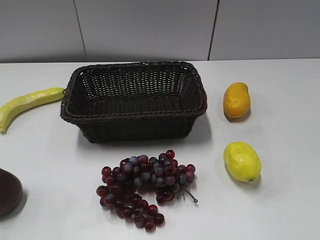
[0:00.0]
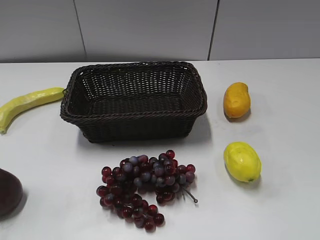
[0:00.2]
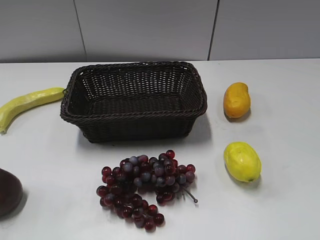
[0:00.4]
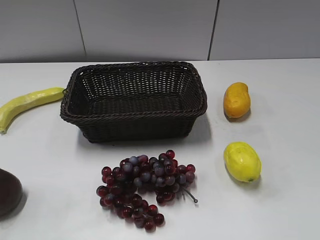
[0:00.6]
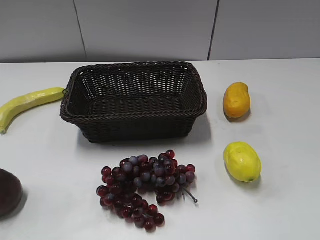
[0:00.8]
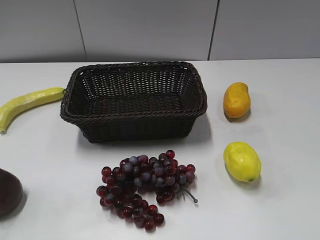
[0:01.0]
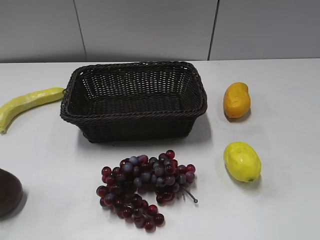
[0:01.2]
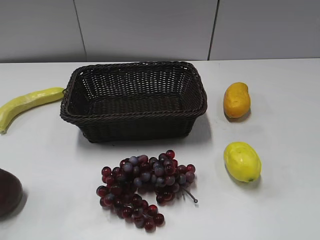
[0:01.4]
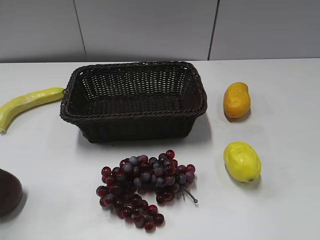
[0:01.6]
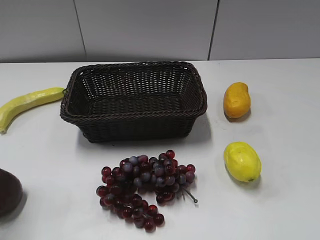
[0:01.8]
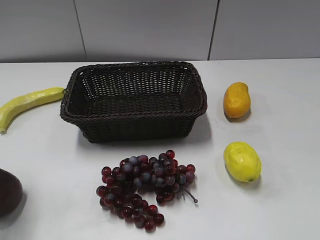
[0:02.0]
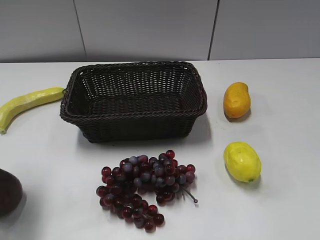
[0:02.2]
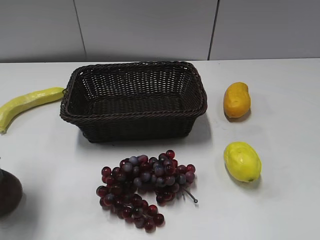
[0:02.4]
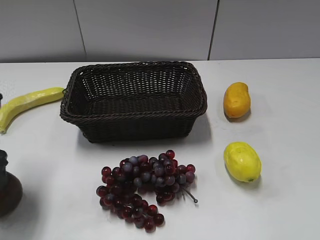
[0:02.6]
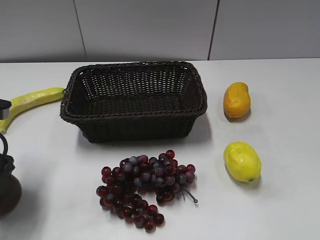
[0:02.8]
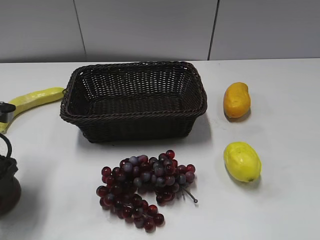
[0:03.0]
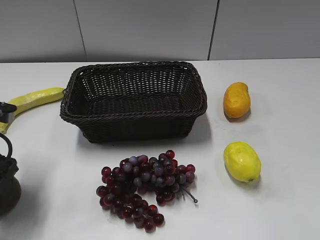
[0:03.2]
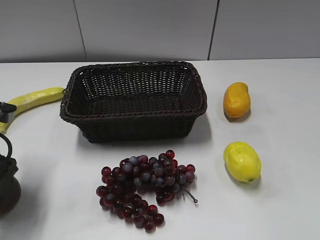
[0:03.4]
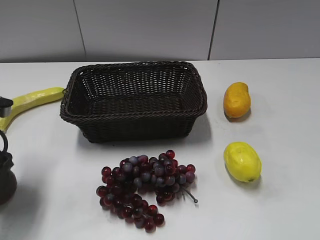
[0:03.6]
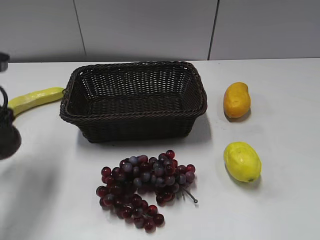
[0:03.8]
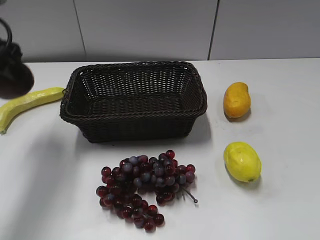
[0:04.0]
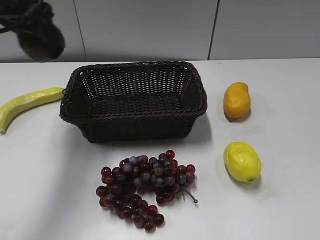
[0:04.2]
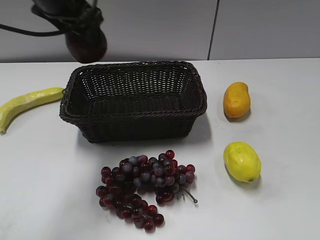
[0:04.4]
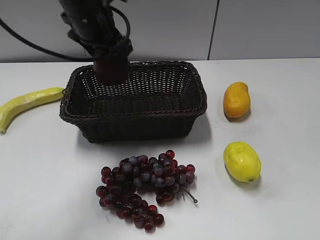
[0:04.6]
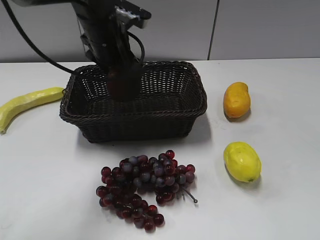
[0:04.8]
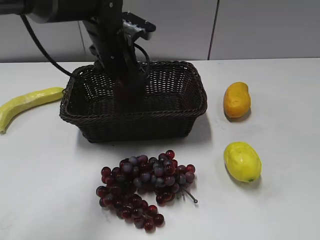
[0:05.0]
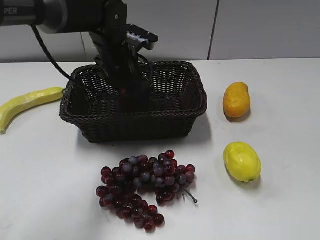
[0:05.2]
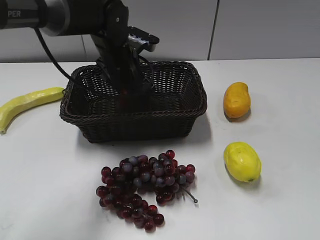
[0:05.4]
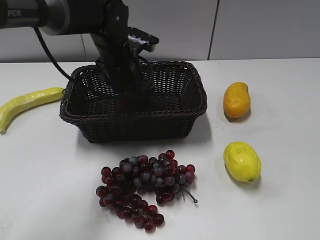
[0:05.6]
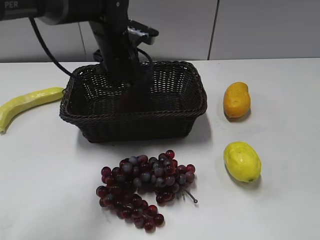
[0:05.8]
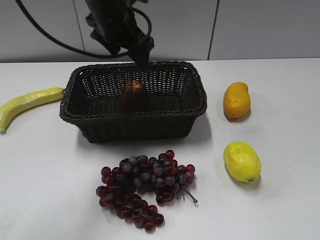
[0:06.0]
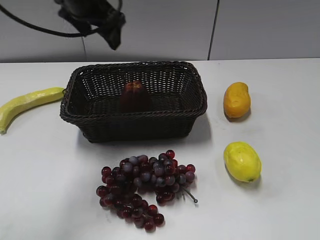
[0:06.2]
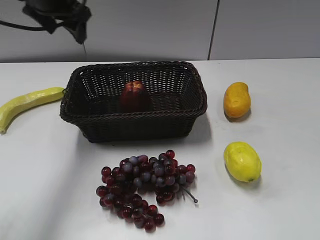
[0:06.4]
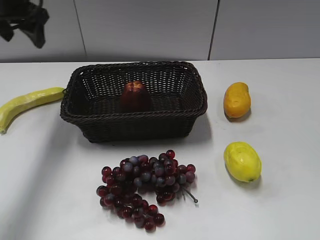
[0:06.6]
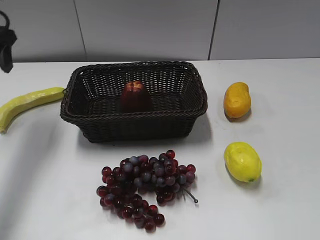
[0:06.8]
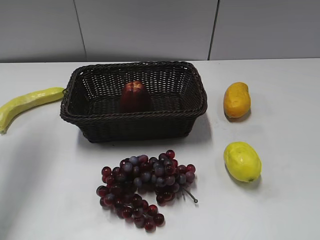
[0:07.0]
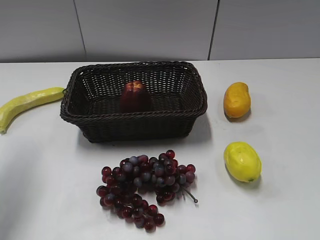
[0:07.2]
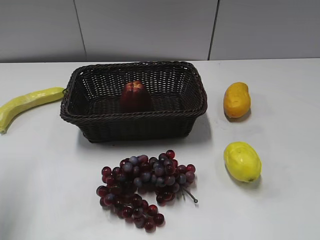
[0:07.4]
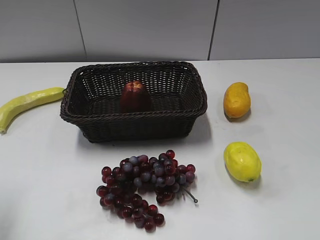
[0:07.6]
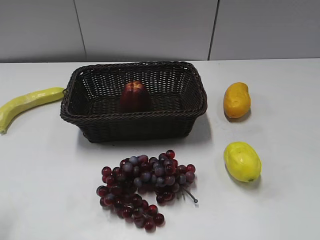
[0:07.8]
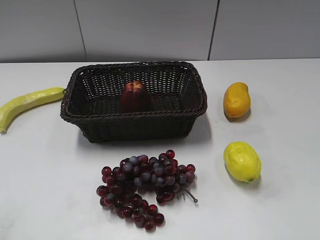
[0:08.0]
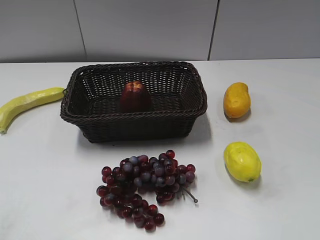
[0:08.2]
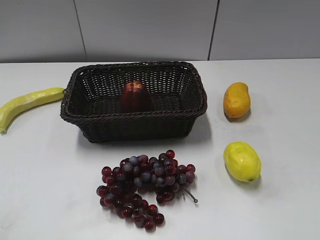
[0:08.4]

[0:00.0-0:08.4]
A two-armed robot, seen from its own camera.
Step, 0:03.2 to 0:05.4: Place the apple in the basket with left gripper.
0:01.4 to 0:02.8: The left gripper travels forward and downward by about 20 cm.
0:02.8 to 0:04.2: The left gripper moves upward, forward and to the right, some 20 cm.
0:04.2 to 0:05.6: The left gripper travels downward and to the right by about 20 cm.
0:05.6 to 0:07.0: The left gripper travels to the left and upward by about 25 cm.
0:07.0 to 0:08.4: The left gripper shifts approximately 30 cm backward.

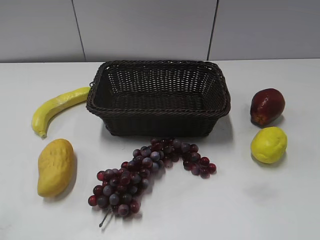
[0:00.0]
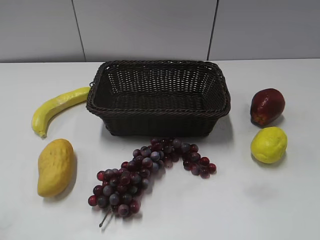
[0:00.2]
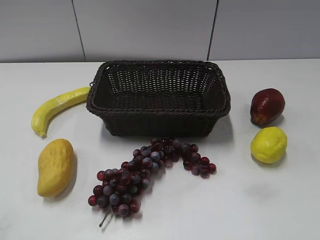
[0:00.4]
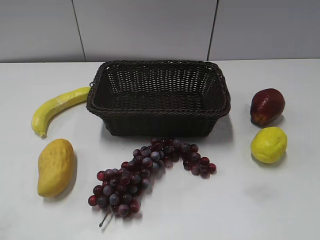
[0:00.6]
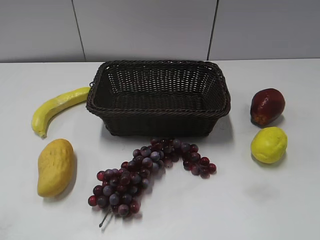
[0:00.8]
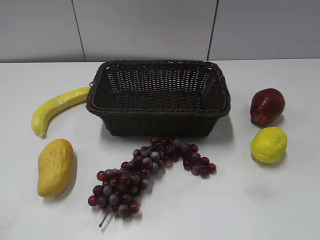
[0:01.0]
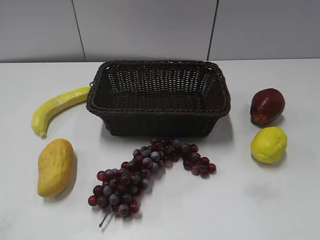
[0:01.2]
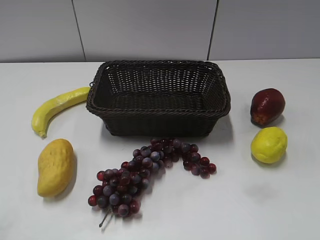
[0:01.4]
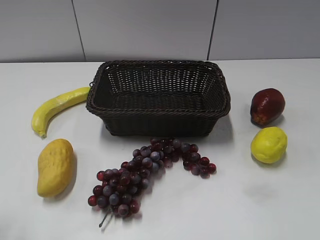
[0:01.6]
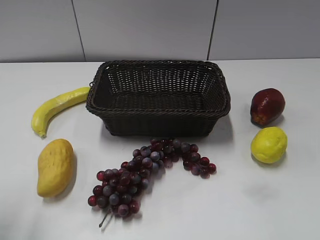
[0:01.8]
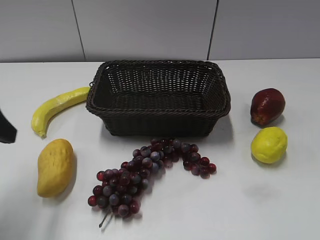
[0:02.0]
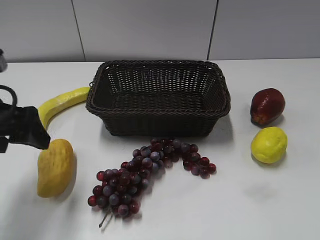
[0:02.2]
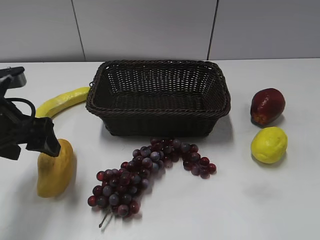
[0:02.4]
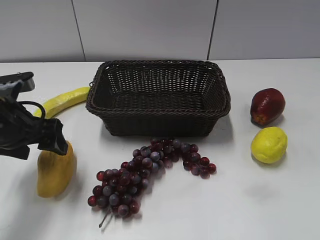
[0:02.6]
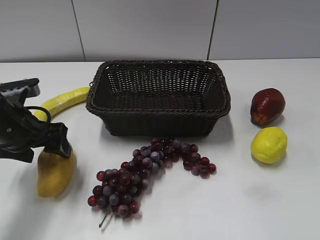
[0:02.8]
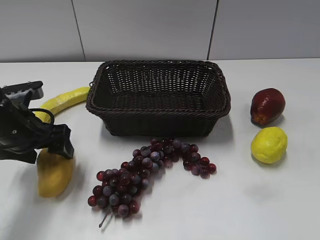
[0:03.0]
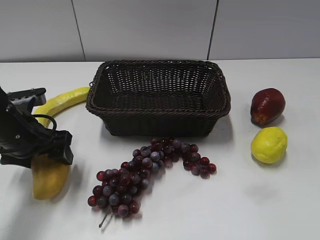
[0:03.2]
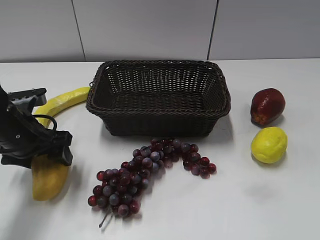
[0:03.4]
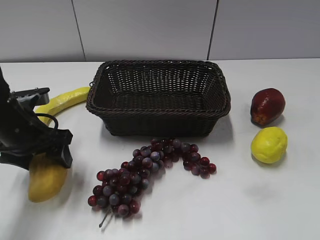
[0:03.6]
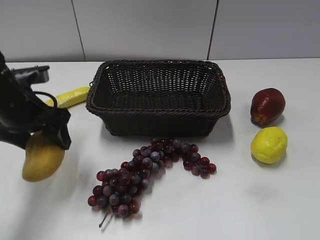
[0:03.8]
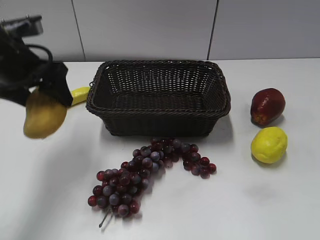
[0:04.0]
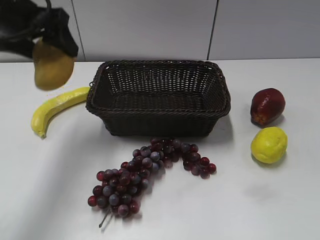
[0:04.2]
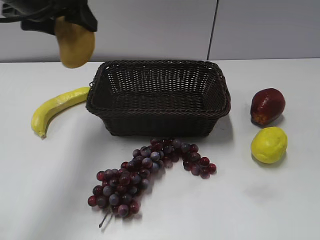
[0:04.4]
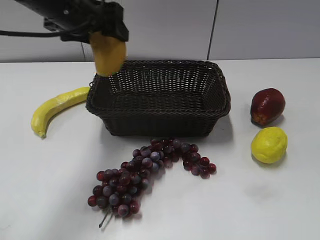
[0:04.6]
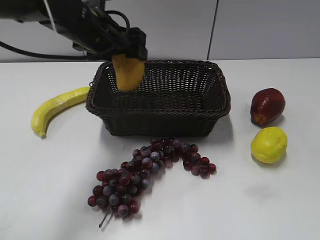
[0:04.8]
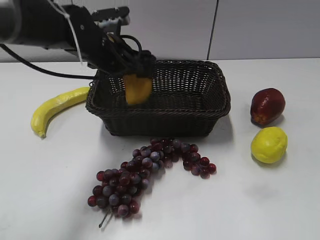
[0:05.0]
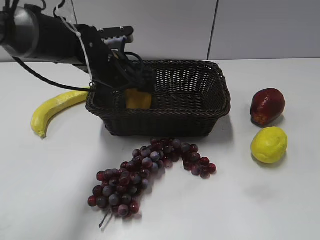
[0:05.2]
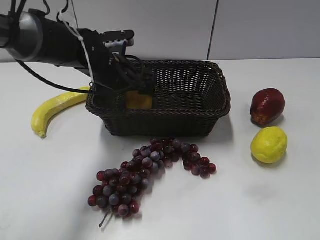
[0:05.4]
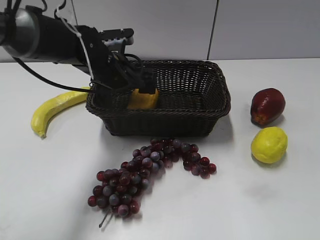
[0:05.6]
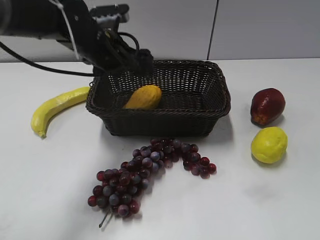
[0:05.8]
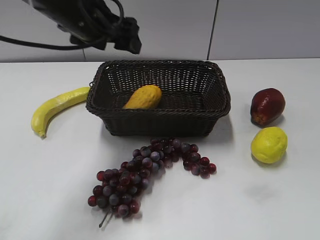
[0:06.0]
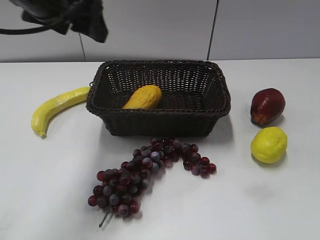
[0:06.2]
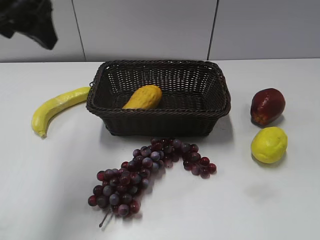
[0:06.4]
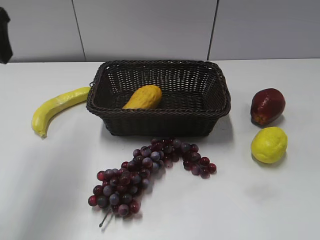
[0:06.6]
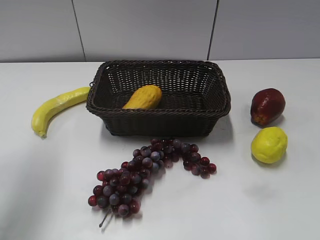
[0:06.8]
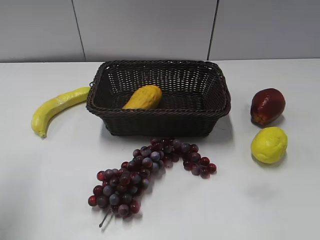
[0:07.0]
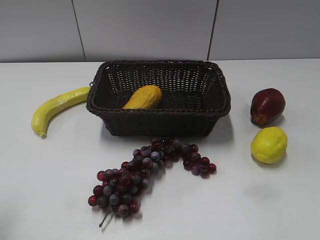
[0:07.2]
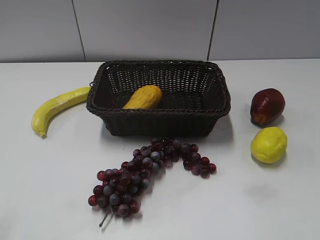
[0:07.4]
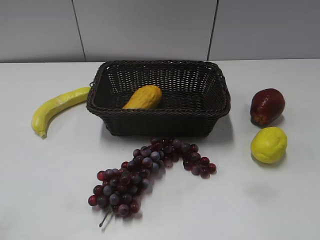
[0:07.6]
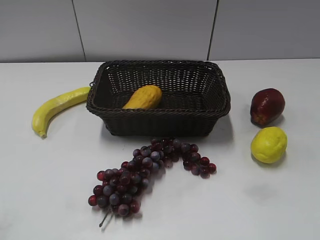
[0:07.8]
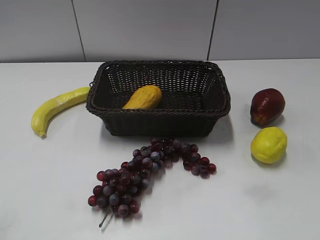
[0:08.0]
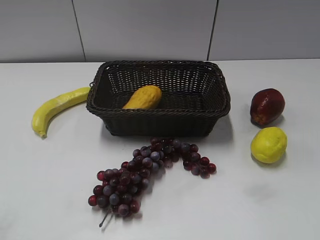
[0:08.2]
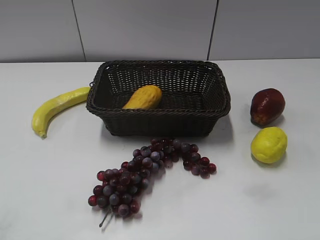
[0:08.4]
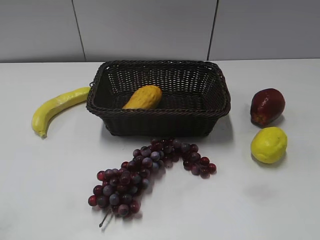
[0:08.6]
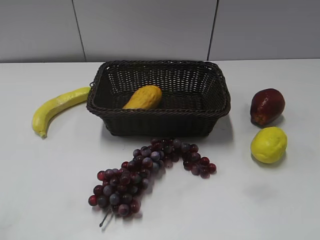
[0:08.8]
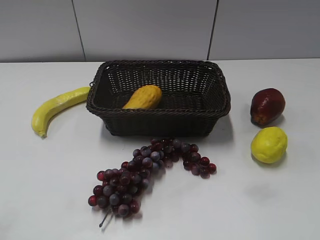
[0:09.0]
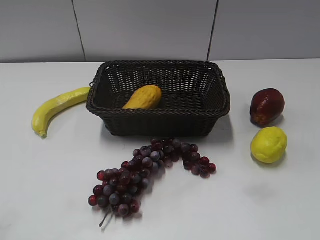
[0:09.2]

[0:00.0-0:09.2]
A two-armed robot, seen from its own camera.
Step, 0:02.0 to 0:03.2: Grasp the mango with left gripper.
Step, 0:03.4 to 0:05.4: Place the mango in the basket with left gripper.
0:01.6 to 0:03.0: The left gripper shifts some 25 cm forward, downward and to the right.
0:03.0 to 0:04.6: The left gripper goes about 20 cm upward, to the right and forward, and closes its fingers.
0:04.6 to 0:06.2: The left gripper travels backward by approximately 5 cm, and travels downward and back again, about 15 cm each way.
0:06.2 to 0:07.6: The left gripper heads backward and to the left, covering roughly 35 cm, and closes up.
